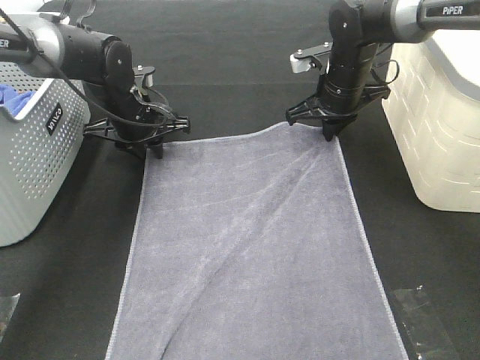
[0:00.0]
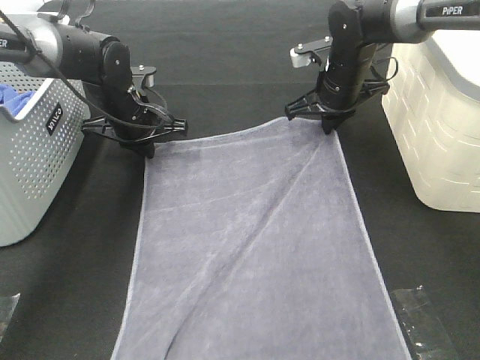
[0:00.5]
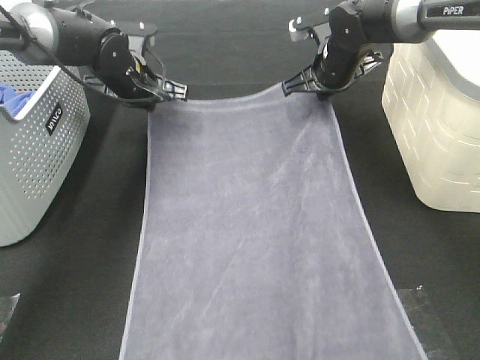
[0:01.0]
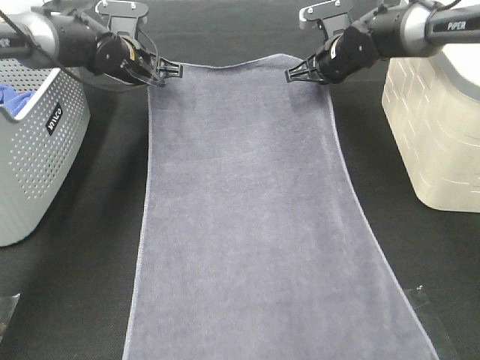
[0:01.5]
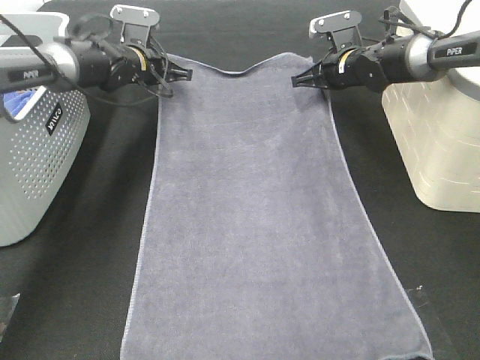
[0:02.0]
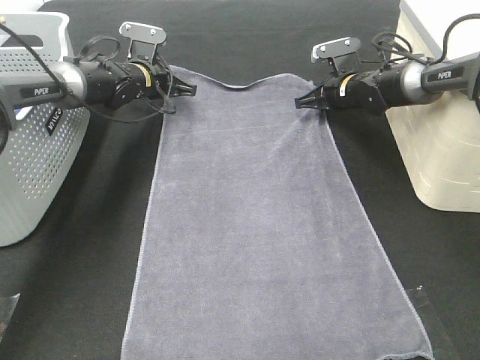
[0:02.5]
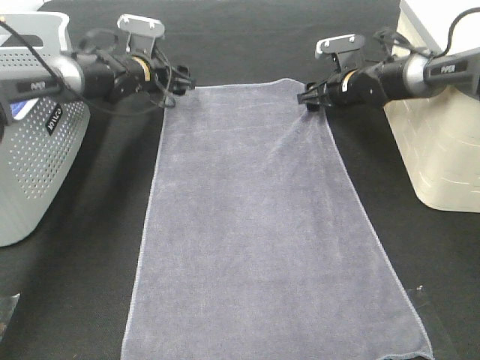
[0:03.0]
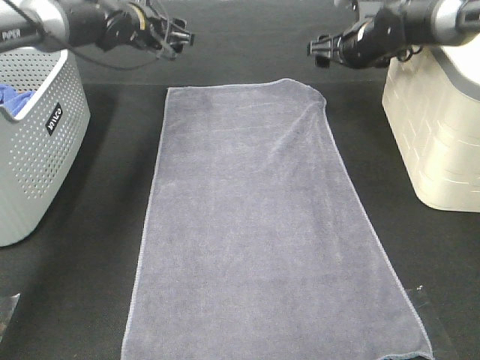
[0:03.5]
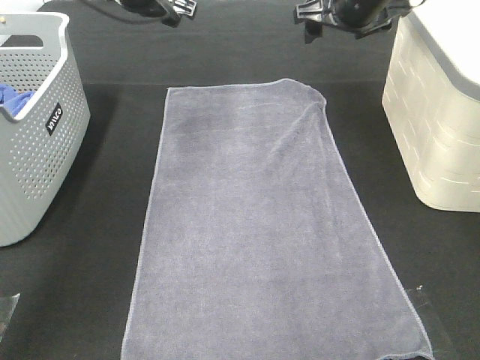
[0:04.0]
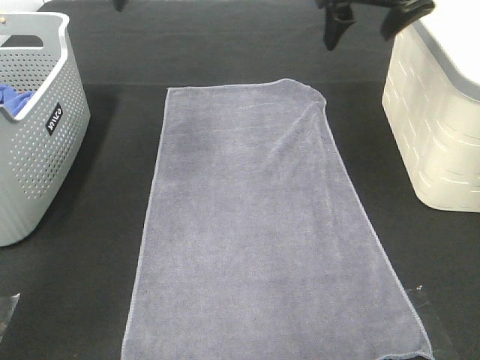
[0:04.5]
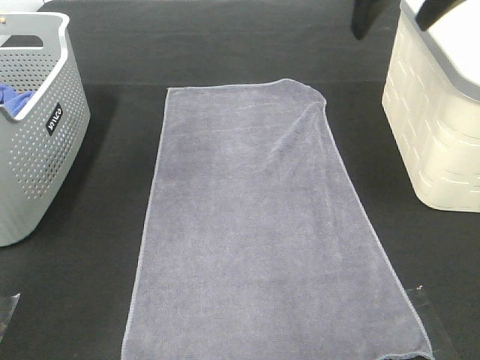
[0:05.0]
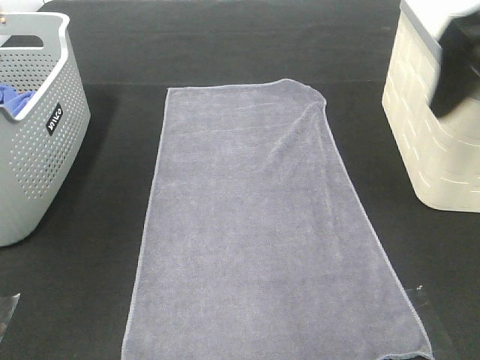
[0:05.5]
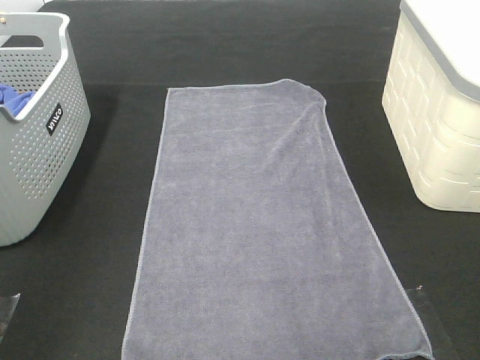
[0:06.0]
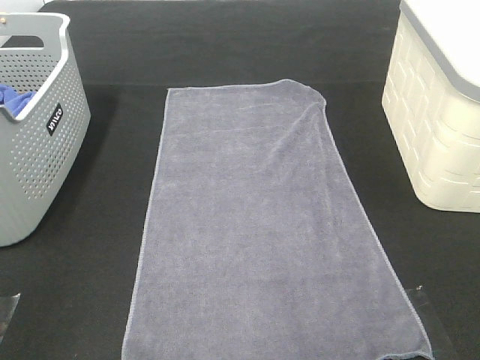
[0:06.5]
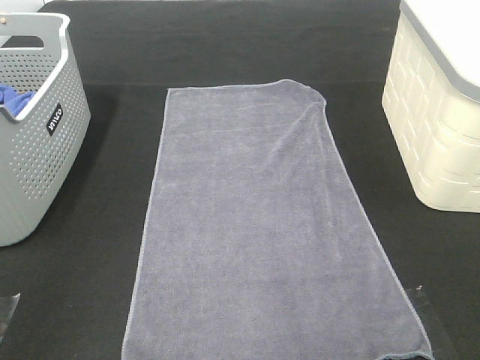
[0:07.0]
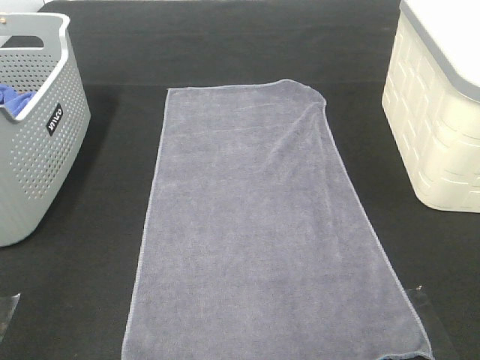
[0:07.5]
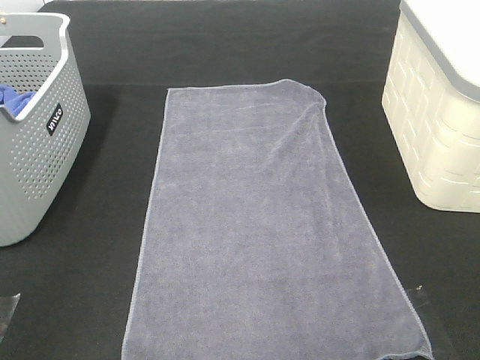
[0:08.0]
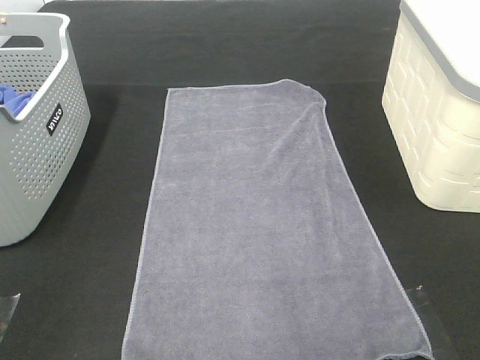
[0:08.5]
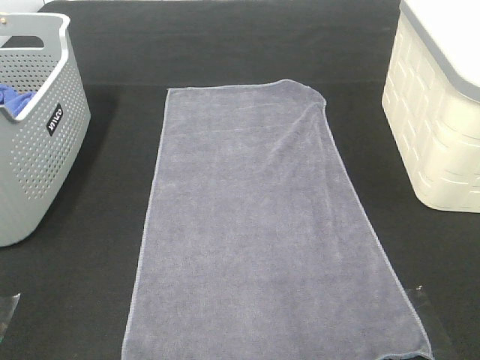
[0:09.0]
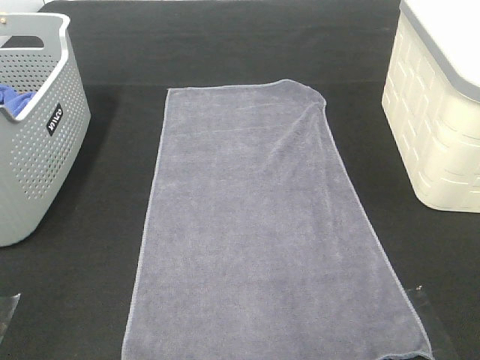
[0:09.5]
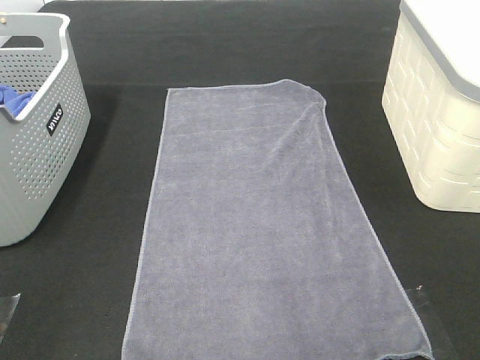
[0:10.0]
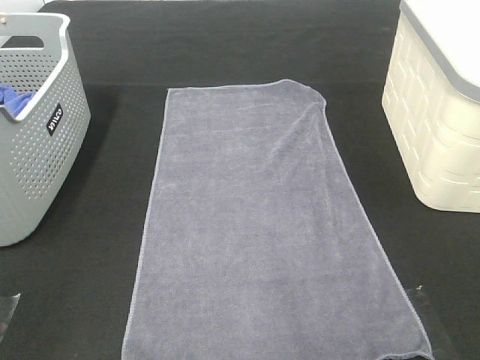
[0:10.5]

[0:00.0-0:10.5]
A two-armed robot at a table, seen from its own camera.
Task of the whole recording: Remove the towel and place it.
0:00.0 to 0:02.0: Both grippers move forward, about 10 cm.
0:02.0 to 0:04.0: The grippers both shift upward and backward by some 15 cm. The right gripper opens; the left gripper opens.
0:04.0 to 0:06.5: The grippers both shift backward by roughly 50 cm.

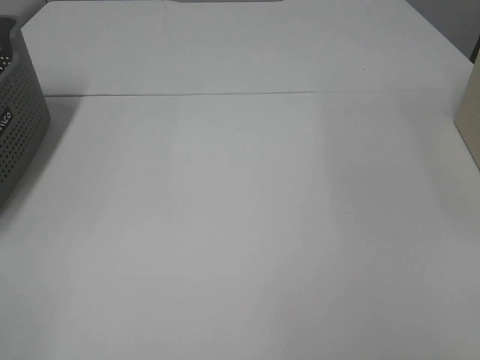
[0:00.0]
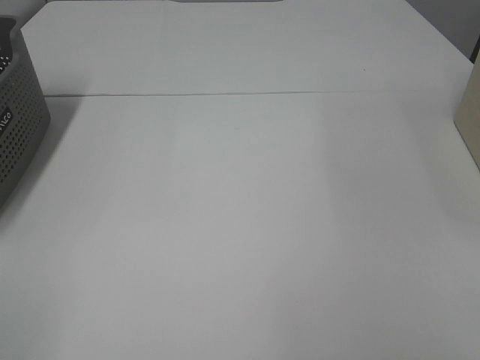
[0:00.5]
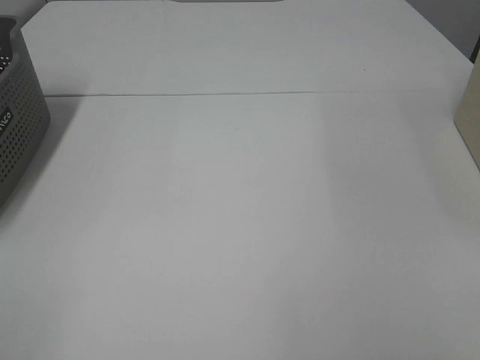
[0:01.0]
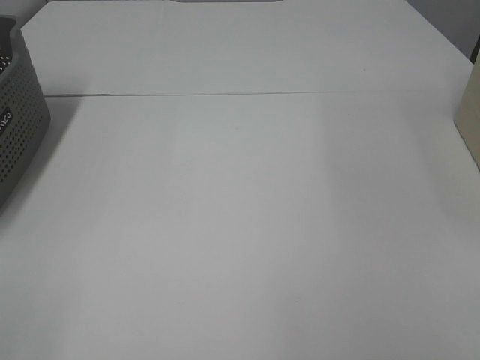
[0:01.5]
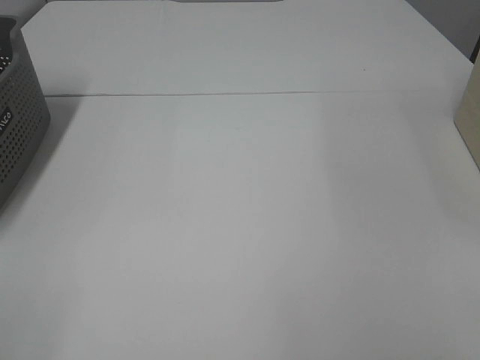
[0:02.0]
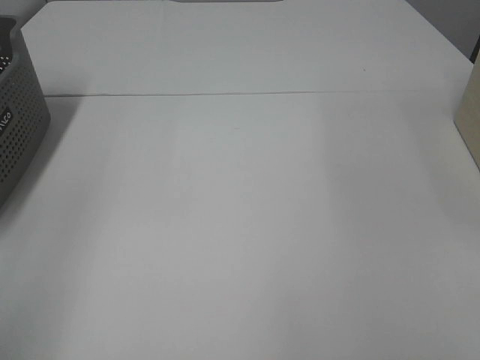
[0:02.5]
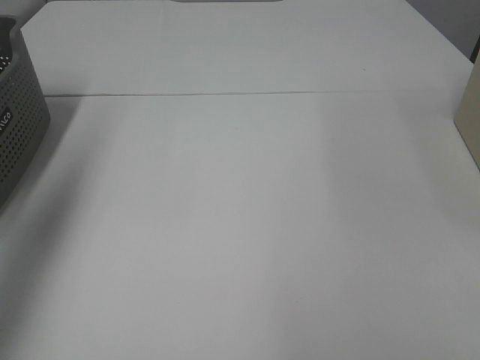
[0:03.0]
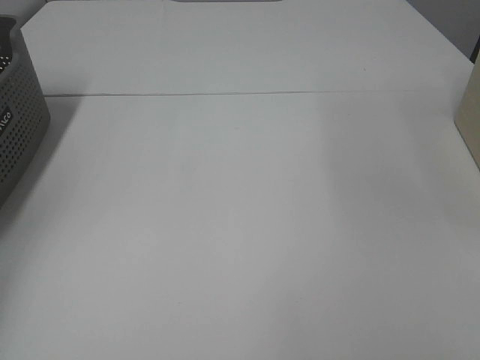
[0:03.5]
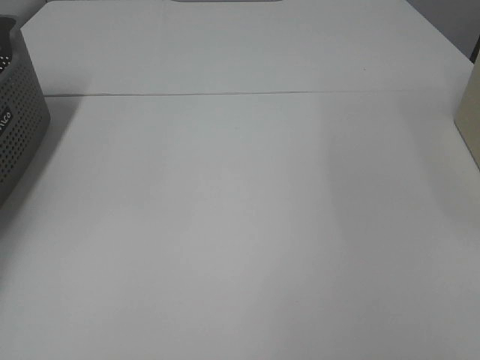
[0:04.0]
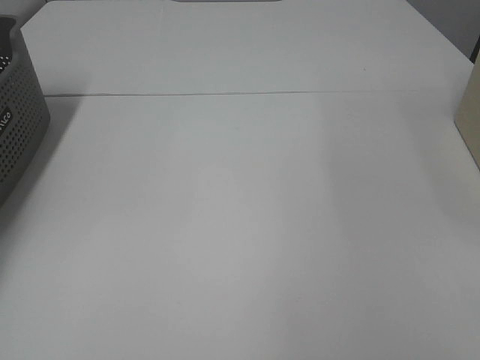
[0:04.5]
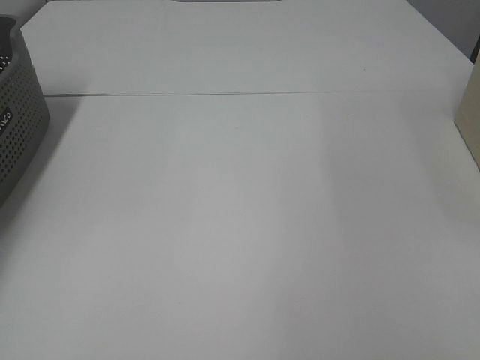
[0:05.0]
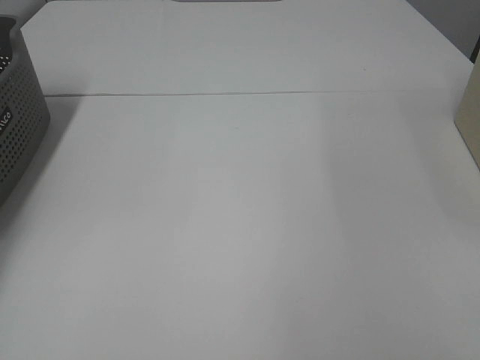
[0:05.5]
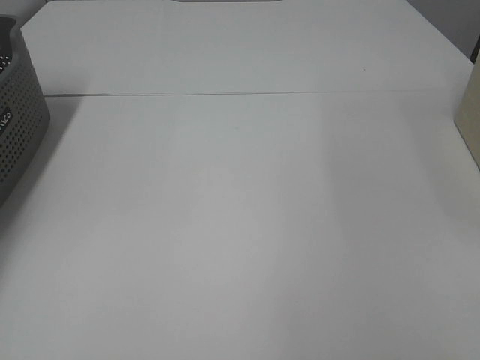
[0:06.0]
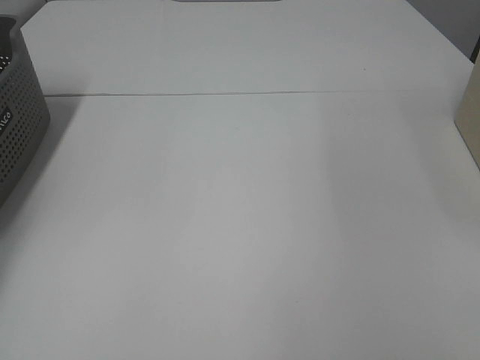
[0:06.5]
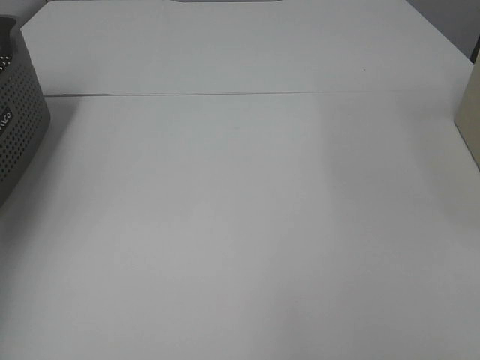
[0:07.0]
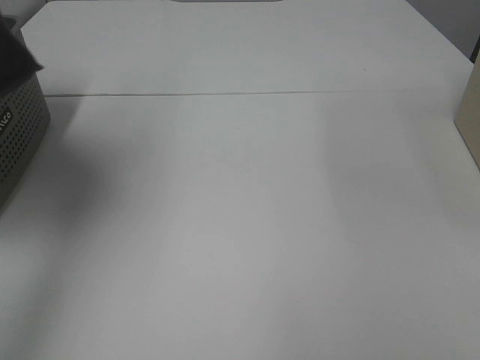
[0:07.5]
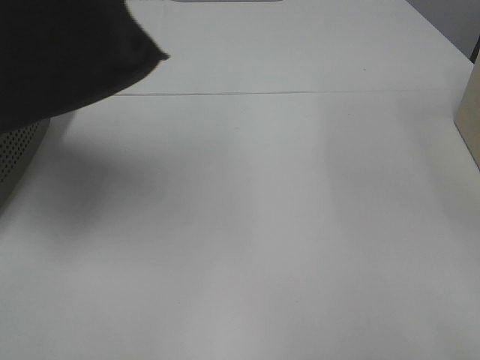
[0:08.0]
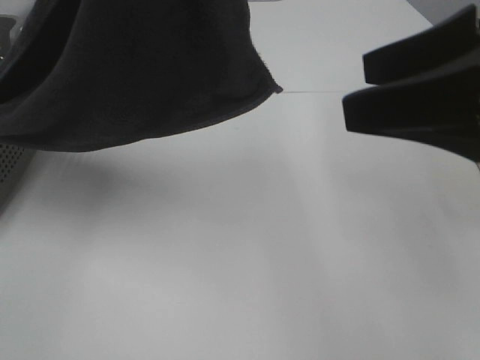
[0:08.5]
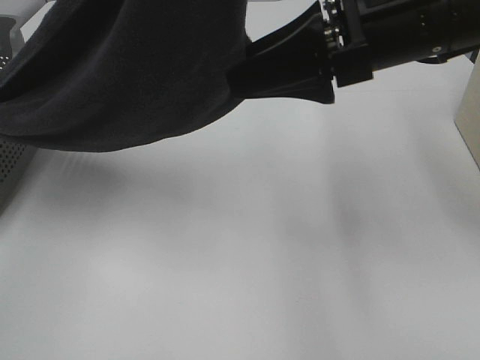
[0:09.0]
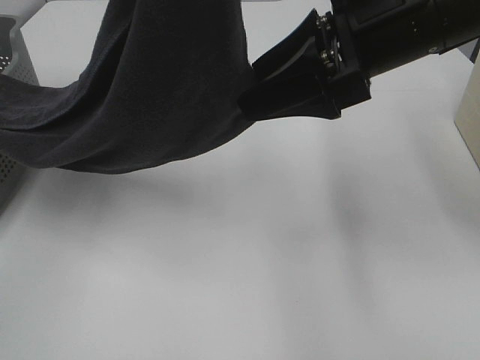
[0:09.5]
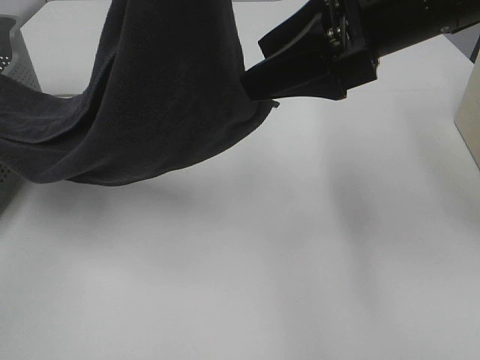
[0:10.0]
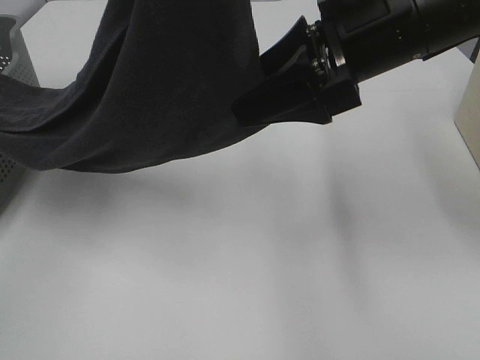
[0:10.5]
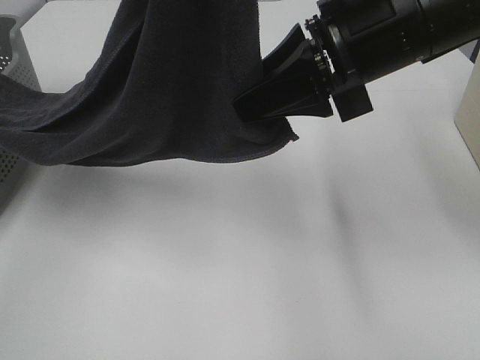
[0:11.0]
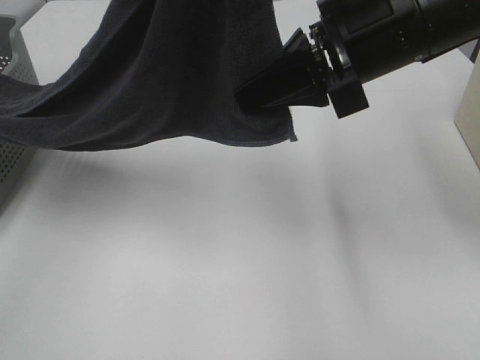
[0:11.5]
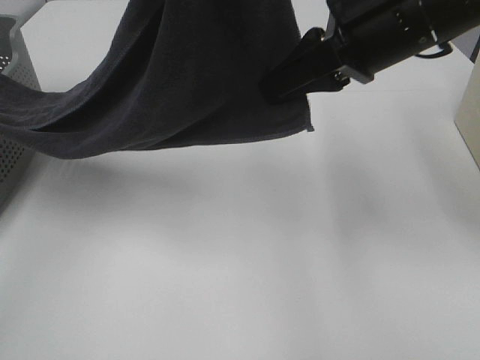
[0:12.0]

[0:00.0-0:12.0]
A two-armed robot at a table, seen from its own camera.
Task of the whole recording: Remove the towel and place it.
Step, 0:07.5 to 0:11.5: Right hand: grab a corner of the grey towel and straighten it.
0:00.0 to 0:02.0: Neither gripper changes place.
0:02.0 to 0:04.0: The left gripper shifts roughly 40 cm forward.
0:06.0 to 0:08.0: The left gripper moves upward, to the right and backward, approximately 50 cm, while the right gripper is displaced forward by roughly 5 cm.
0:08.0 to 0:10.0: The right gripper heads forward and to the left, covering roughly 25 cm. Meanwhile the left gripper heads to the right, covering some 5 cm.
0:10.0 to 0:12.0: The right gripper closes its fingers.

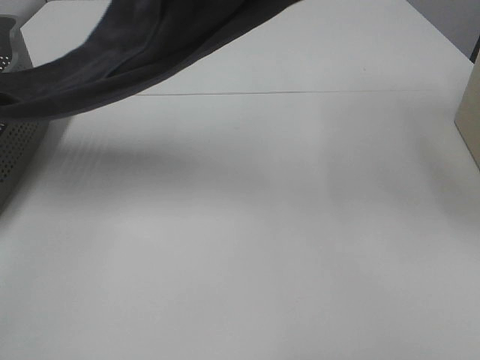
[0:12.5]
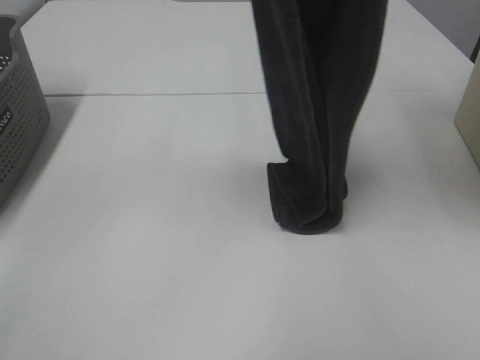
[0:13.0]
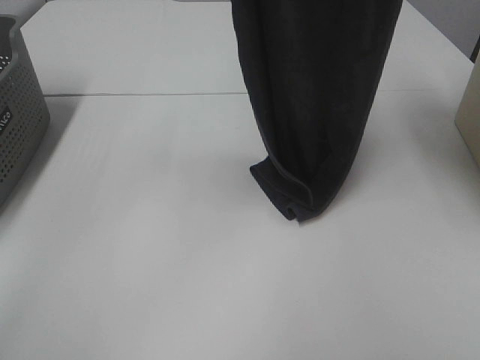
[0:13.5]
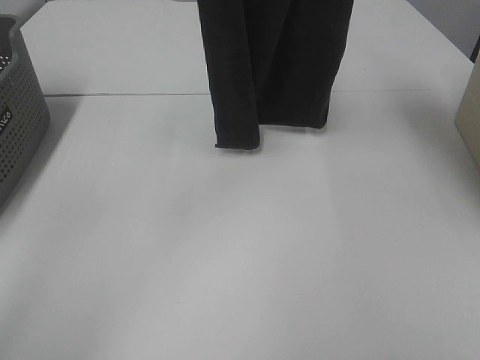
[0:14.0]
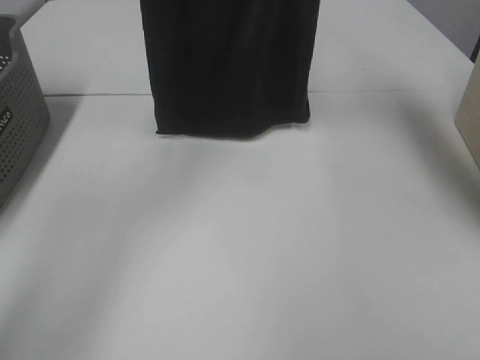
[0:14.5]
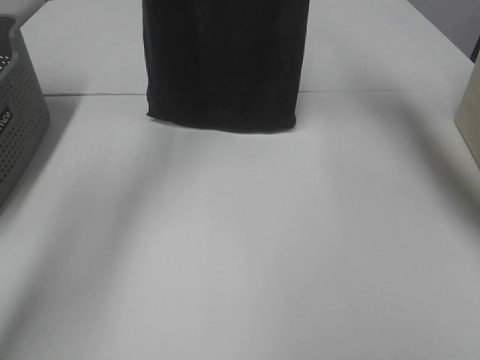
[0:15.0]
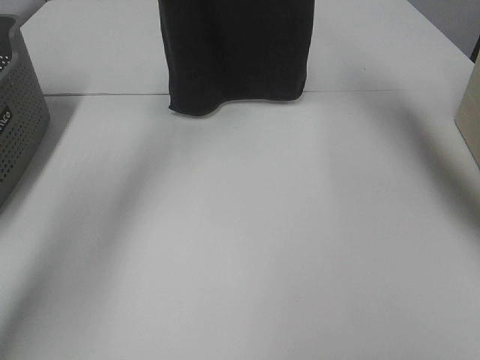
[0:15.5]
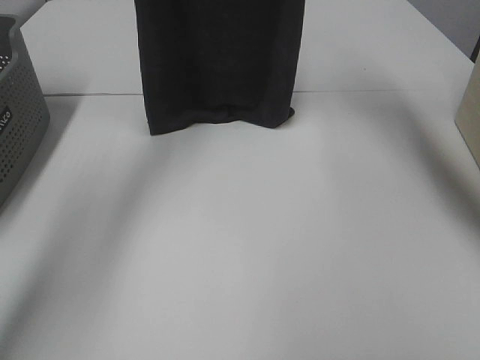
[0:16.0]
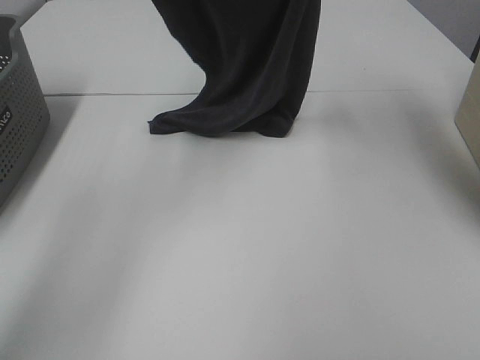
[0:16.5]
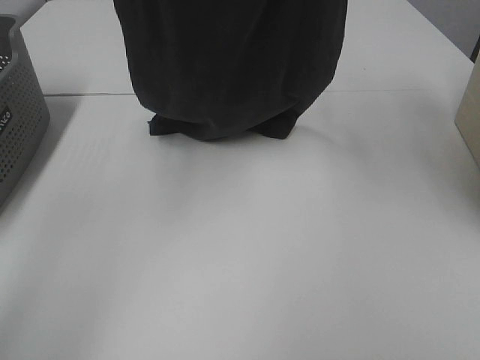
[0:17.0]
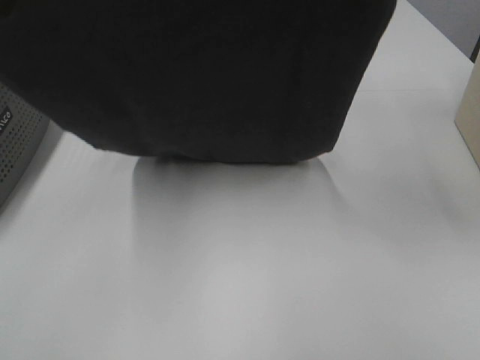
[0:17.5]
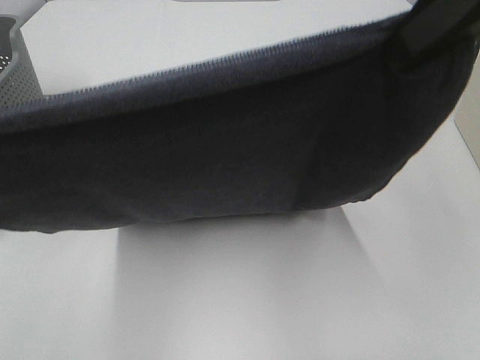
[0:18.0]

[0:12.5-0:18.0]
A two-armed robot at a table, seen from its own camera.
Task of the whole recording: Remove the towel and place it.
Step, 0:12.5 to 0:17.0: Left hand: spread the grey towel flat on the table.
Step, 0:12.5 to 0:17.0: Right hand: spread the grey towel flat on the table.
0:12.5 to 0:14.5: The right gripper heads forward, covering approximately 10 cm, while the left gripper travels forward and to the left by roughly 20 cm.
0:14.5 to 0:16.0: The right gripper is displaced downward and forward by about 5 cm; the left gripper shifts about 10 cm forward.
0:16.0 to 0:18.0: Both grippers move backward, approximately 35 cm.
